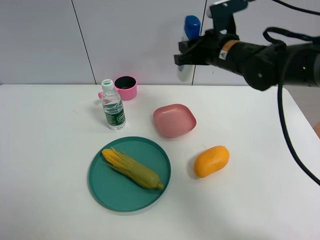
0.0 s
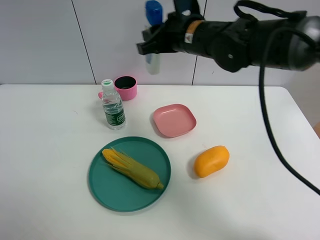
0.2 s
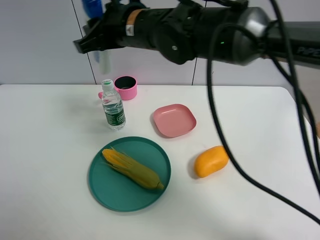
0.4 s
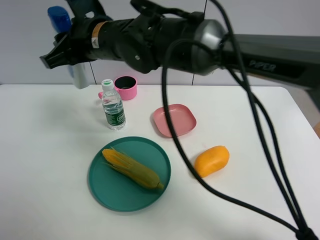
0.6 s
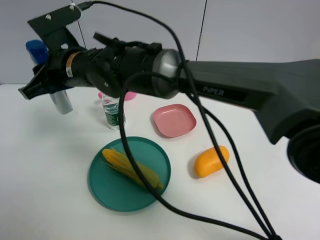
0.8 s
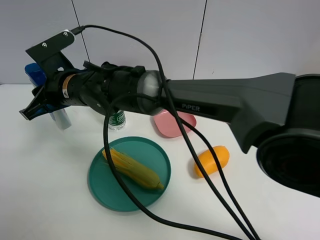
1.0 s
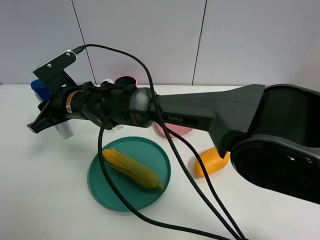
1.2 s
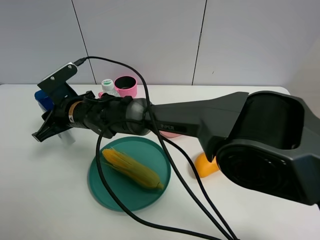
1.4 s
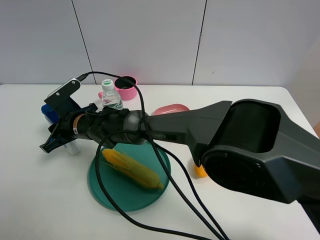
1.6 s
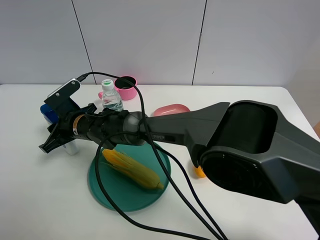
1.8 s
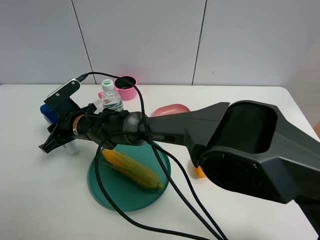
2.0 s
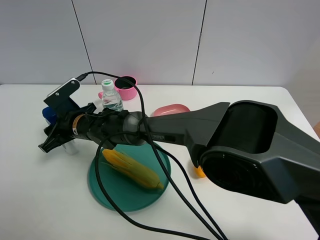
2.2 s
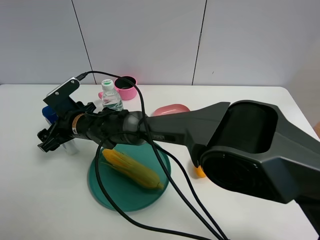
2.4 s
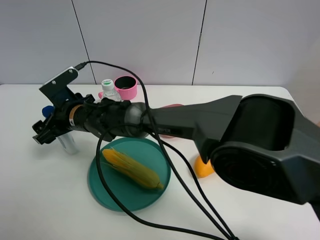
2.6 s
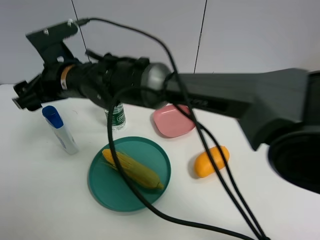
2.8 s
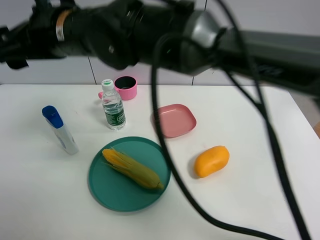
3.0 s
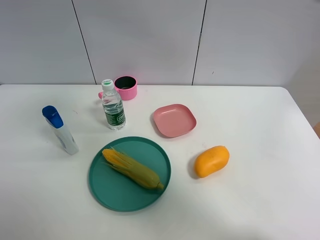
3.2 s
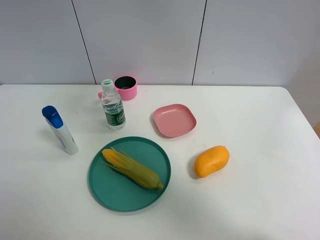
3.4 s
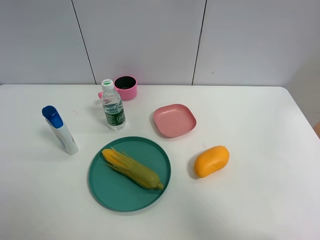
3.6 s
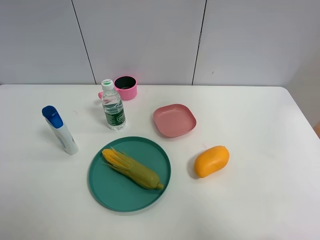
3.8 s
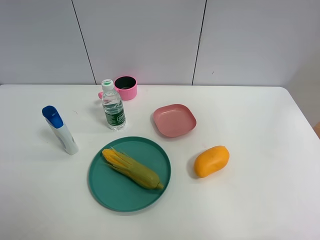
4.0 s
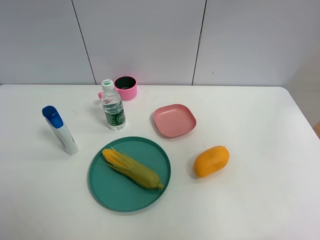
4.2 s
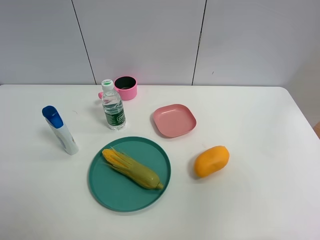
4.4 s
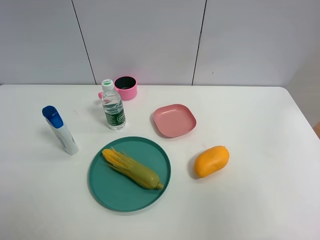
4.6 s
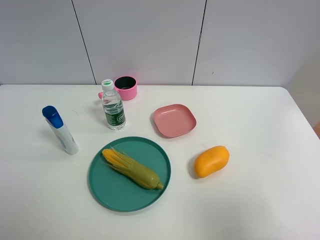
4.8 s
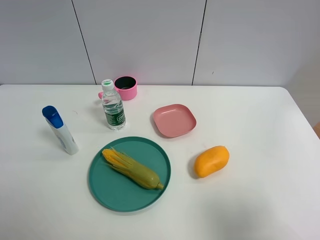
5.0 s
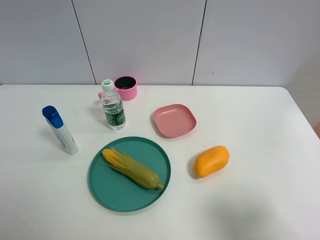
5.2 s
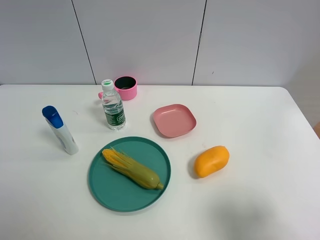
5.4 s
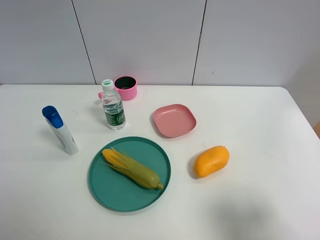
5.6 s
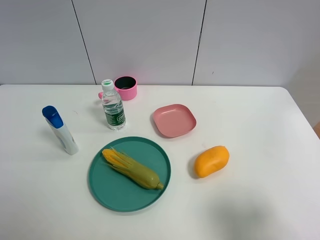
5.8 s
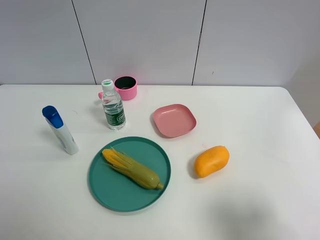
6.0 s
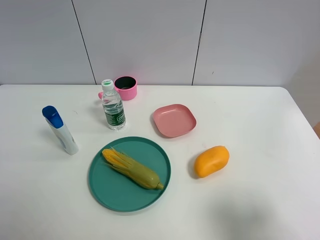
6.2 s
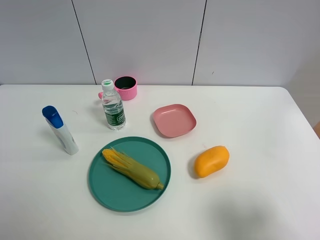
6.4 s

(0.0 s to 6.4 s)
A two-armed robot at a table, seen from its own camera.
Task of the whole recording: the gripper move the object.
Step, 0.0 s - 2.4 s: Place the shampoo on the table with the right gripper.
0.0 s - 1.6 s: The right gripper heads to the left and downward, covering some 30 cm.
1.6 s - 3.2 s: The right gripper is displaced upward and to the right by some 40 cm, and opens its fingers.
3.2 s - 4.8 s: The right gripper moves to the right and backward, approximately 40 cm.

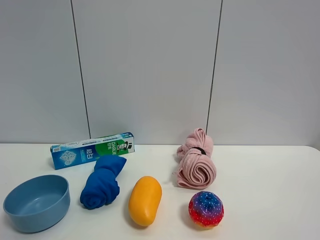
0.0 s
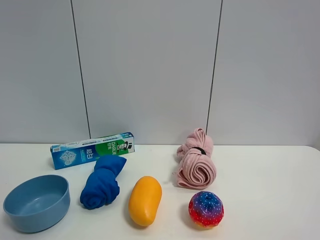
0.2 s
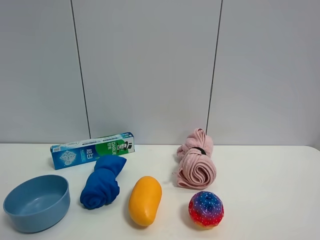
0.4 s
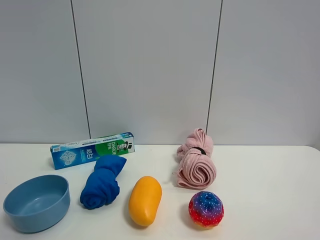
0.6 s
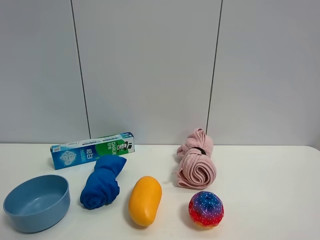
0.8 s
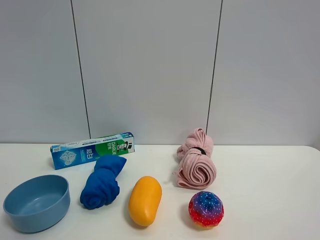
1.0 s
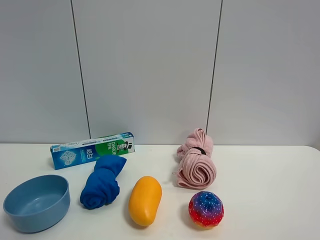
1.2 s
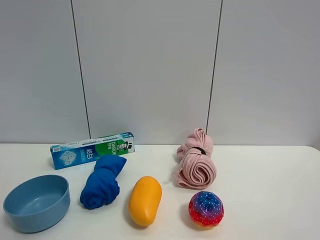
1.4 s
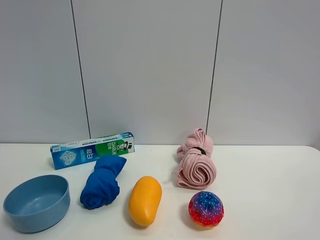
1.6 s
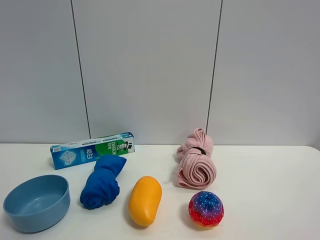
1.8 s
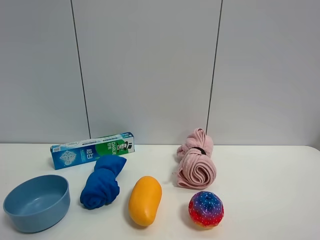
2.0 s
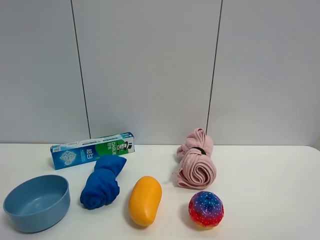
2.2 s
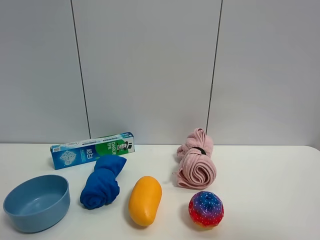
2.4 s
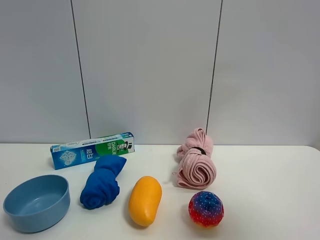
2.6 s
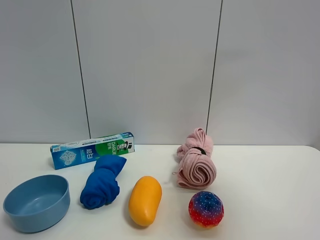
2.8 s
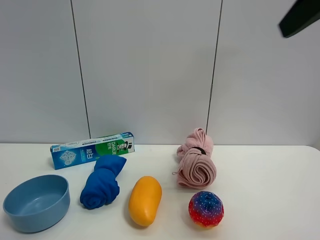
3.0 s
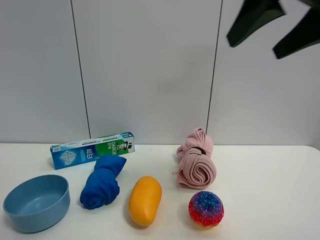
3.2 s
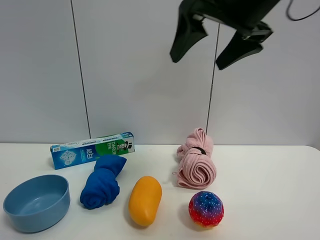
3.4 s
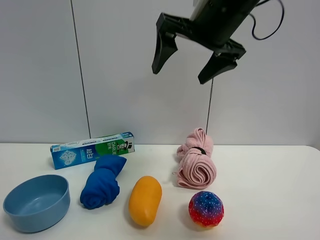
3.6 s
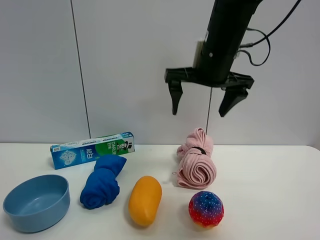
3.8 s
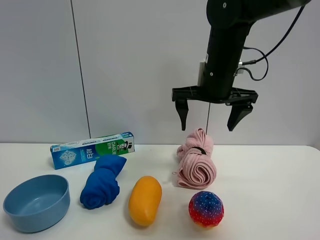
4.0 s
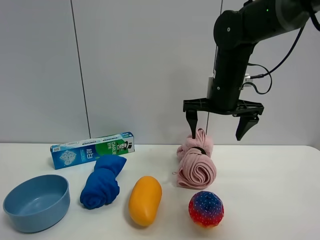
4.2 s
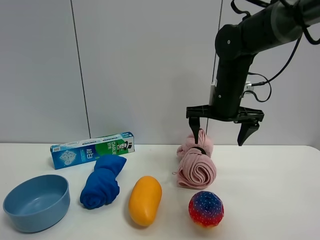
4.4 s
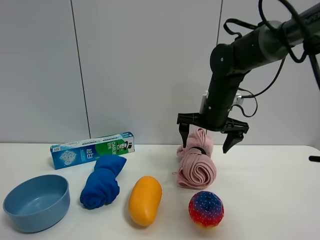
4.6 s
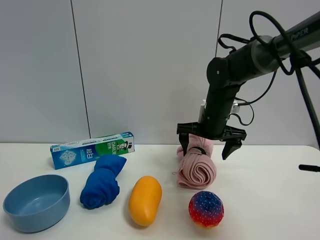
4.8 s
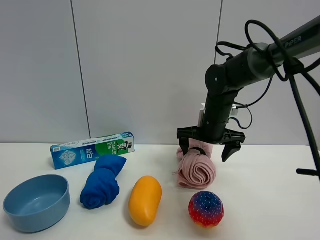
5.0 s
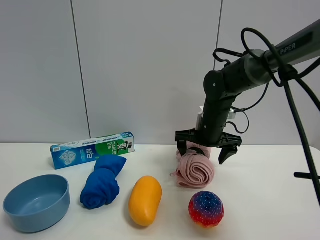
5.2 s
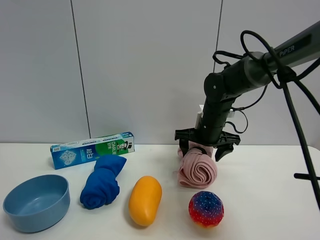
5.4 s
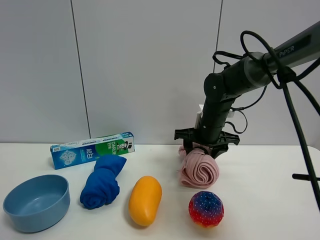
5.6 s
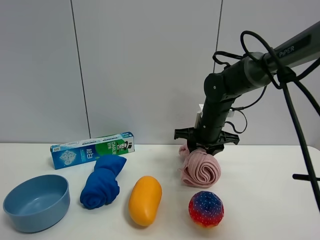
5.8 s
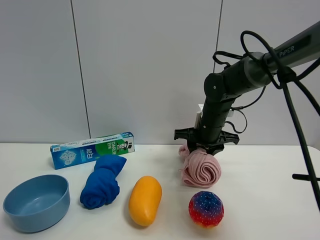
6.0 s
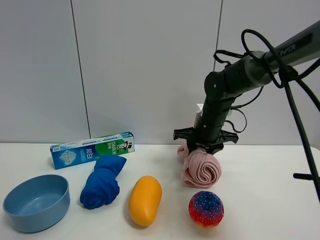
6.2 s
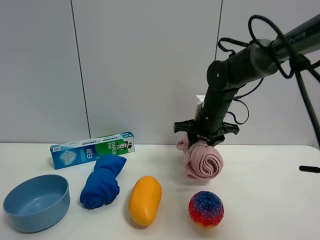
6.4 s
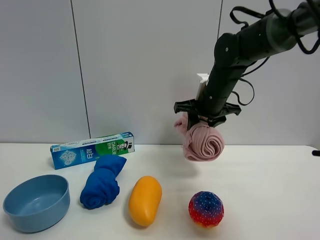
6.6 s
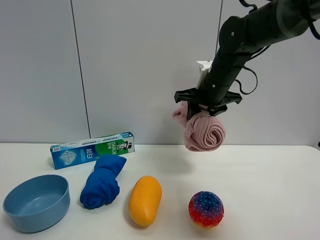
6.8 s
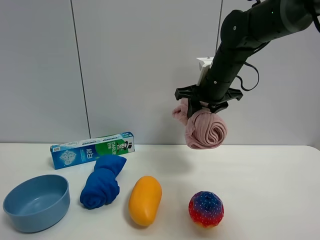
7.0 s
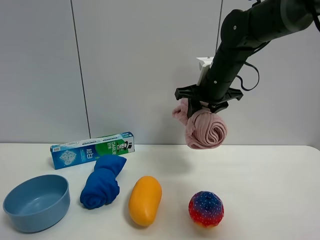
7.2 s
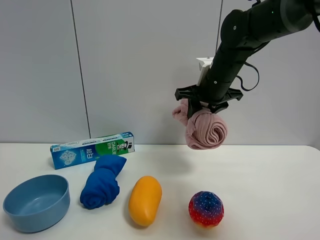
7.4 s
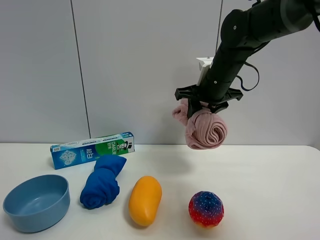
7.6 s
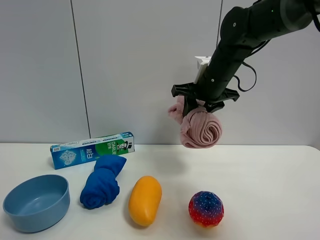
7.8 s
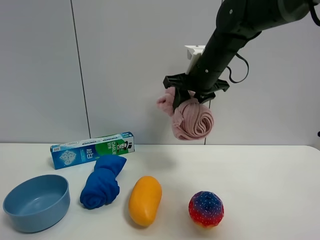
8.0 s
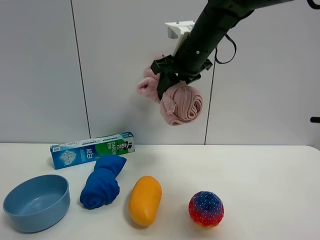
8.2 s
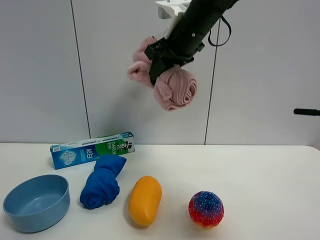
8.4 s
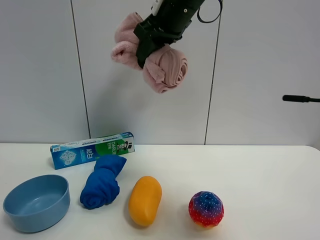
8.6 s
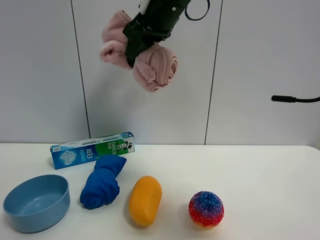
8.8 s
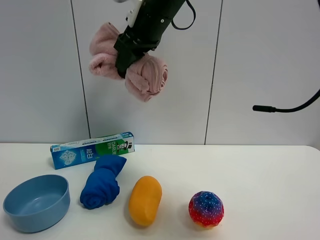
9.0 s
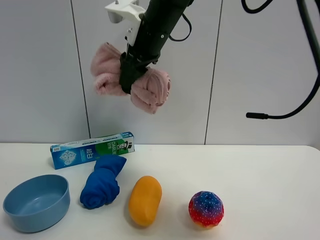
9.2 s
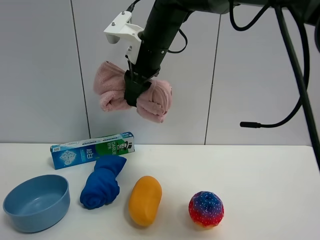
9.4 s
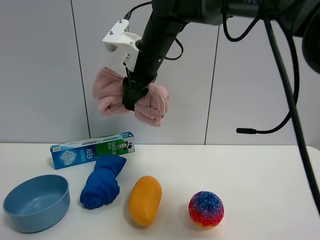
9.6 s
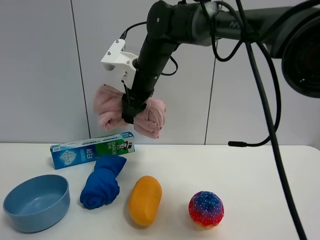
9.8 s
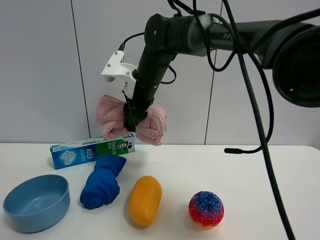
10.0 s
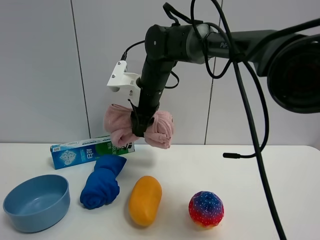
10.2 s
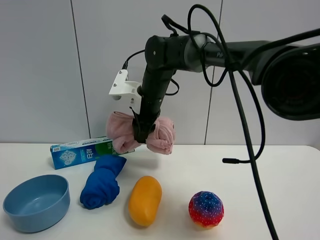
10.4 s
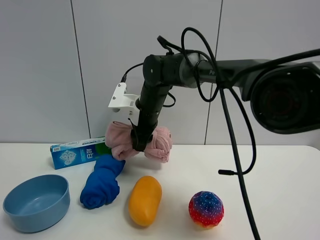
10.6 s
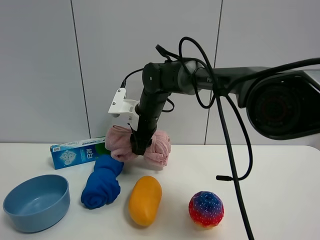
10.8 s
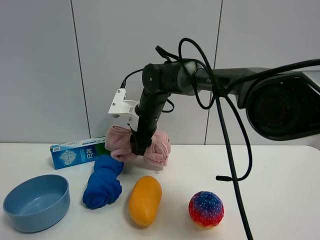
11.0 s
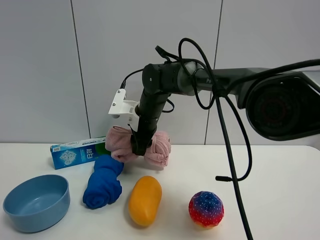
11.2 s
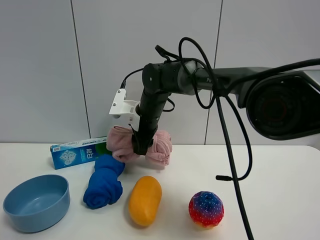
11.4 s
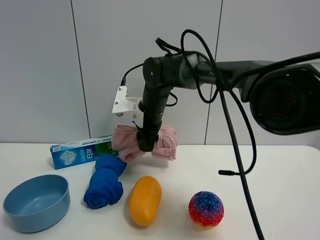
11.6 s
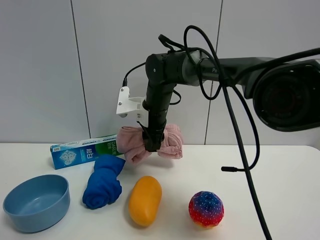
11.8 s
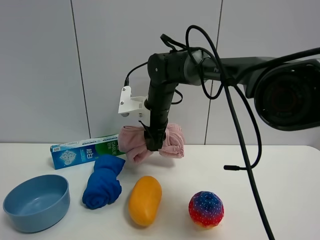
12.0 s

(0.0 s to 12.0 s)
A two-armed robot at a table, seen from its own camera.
Task of the whole recording: the gripper move the object.
Step, 0.0 s - 5.6 s: Grasp the pink towel with the right gripper.
0.0 s - 1.6 s: Both grippers stay about where they are.
1.6 s - 3.0 s: The right gripper goes approximately 25 cm forward, upward and to the left.
3.0 s - 4.4 s: The right gripper shifts some 30 cm forward, downward and to the left.
4.4 s - 6.0 s: The right gripper shifts approximately 5 cm downward, and closes its fingers.
6.0 s - 7.6 s: The right gripper moves upward, approximately 10 cm.
7.6 s - 9.0 s: The right gripper travels to the left and upward by roughly 15 cm.
9.0 s - 10.4 s: The right gripper moves downward, about 15 cm.
10.4 s - 12.0 s: The grippers stay close to where they were, moving slightly.

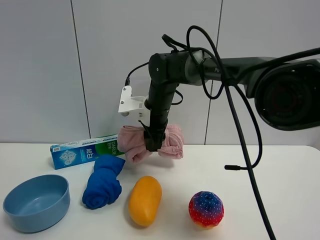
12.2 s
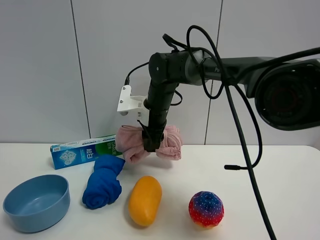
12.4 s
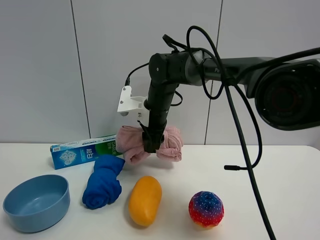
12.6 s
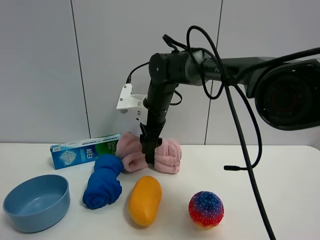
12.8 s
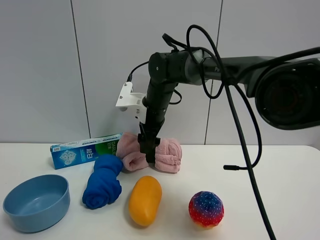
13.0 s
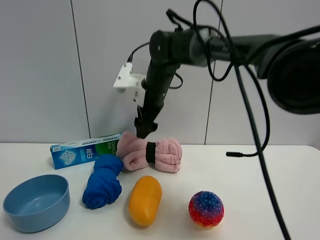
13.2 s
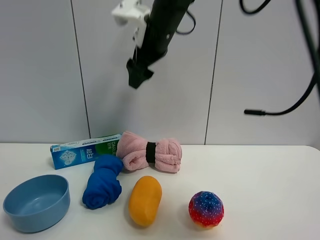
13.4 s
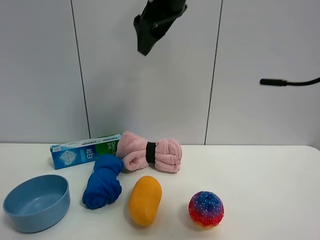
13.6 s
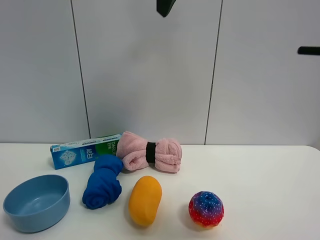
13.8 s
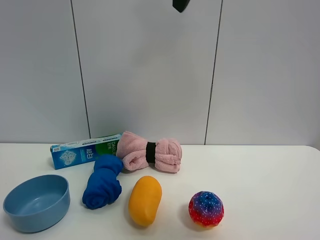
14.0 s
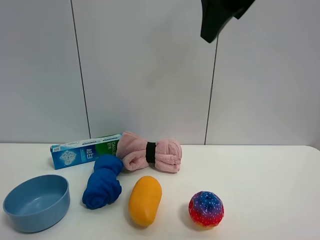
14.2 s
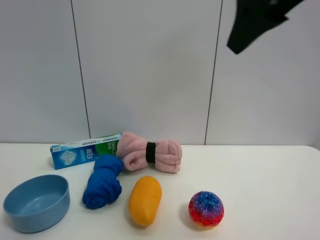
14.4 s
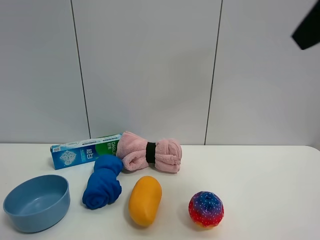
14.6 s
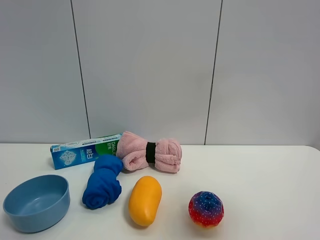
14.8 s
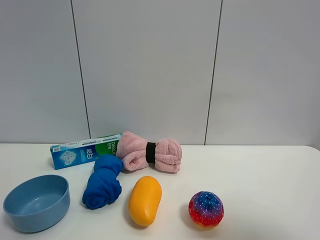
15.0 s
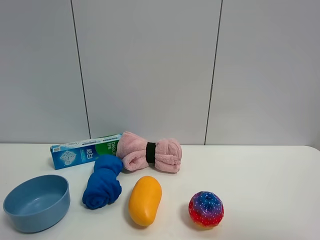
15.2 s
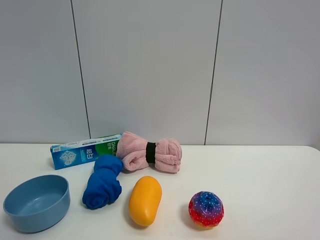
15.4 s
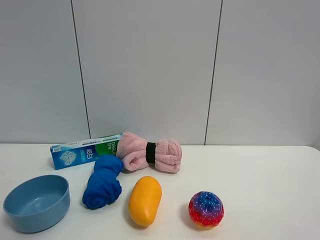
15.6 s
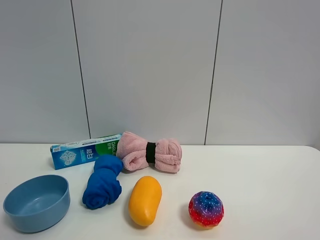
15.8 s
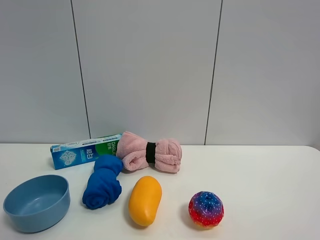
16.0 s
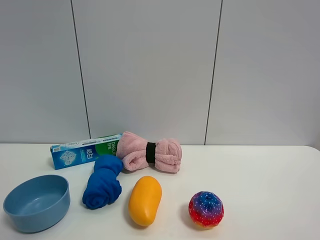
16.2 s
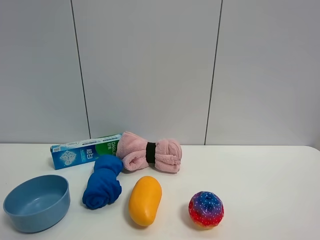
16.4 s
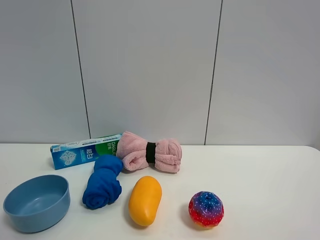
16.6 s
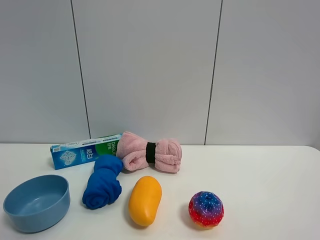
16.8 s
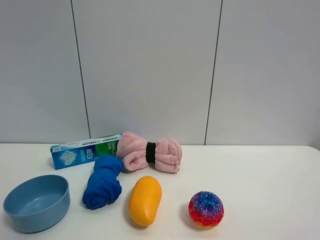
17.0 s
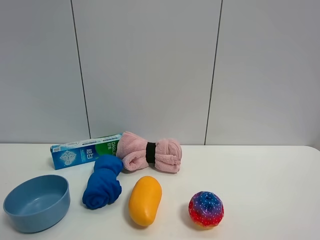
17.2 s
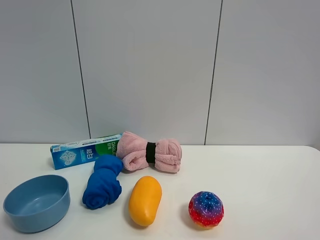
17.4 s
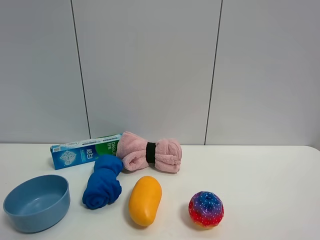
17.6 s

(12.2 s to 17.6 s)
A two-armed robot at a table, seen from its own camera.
Task of the whole recording: the gripper move the object.
12.2 s - 13.6 s: The right gripper shifts approximately 25 cm upward, and opens up.
13.6 s - 15.0 s: The right gripper goes roughly 40 cm backward and to the right.
15.0 s - 16.2 s: The right gripper is displaced backward and downward by about 10 cm.
16.2 s - 17.6 s: Neither gripper changes place.
